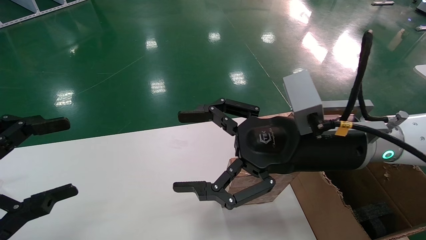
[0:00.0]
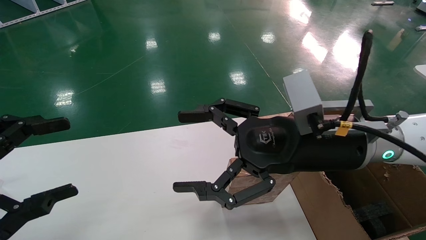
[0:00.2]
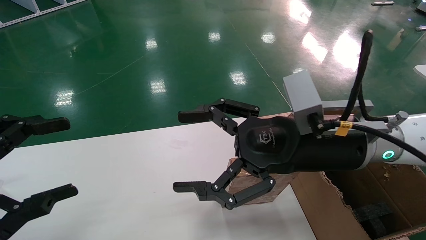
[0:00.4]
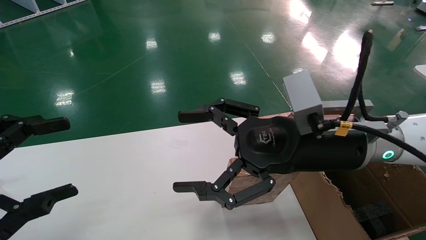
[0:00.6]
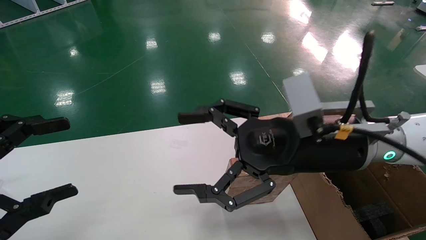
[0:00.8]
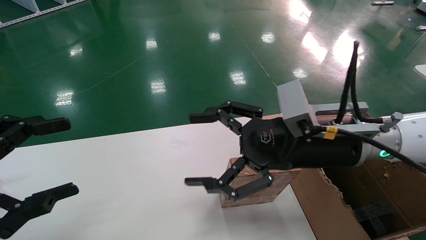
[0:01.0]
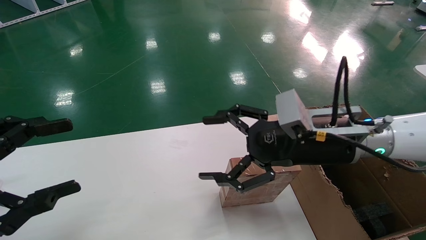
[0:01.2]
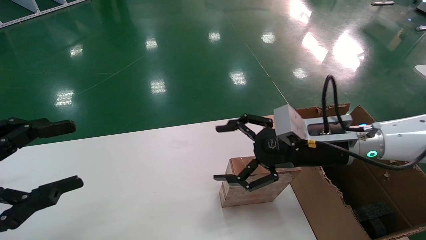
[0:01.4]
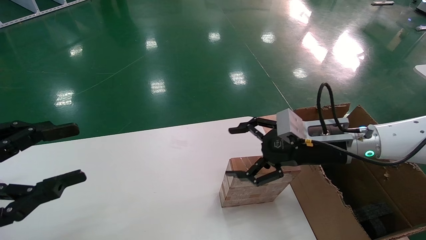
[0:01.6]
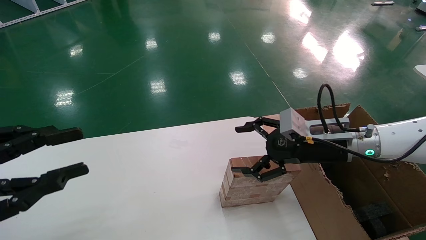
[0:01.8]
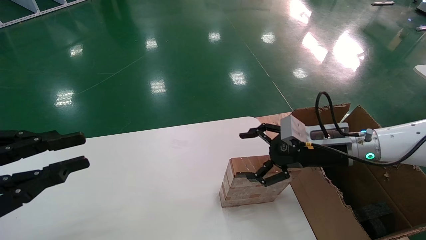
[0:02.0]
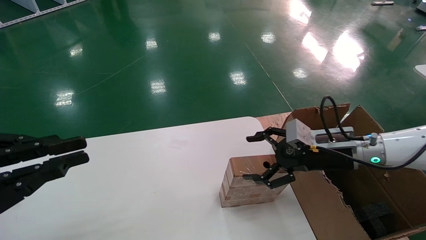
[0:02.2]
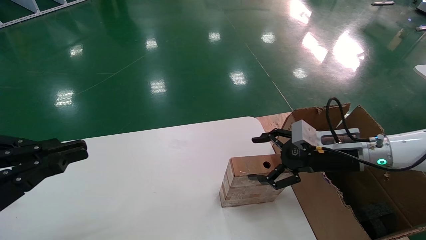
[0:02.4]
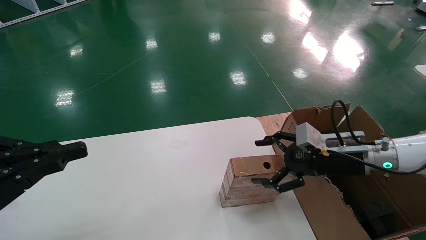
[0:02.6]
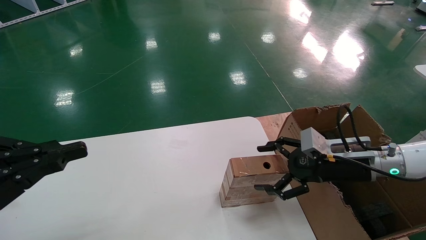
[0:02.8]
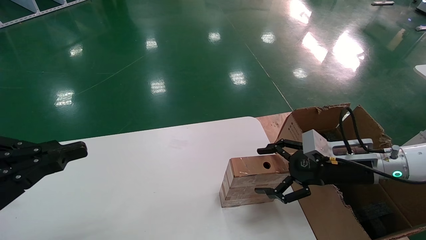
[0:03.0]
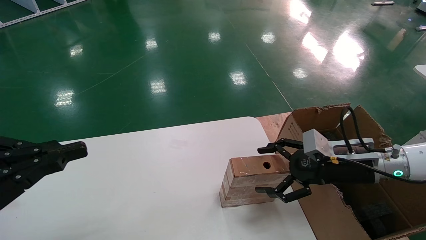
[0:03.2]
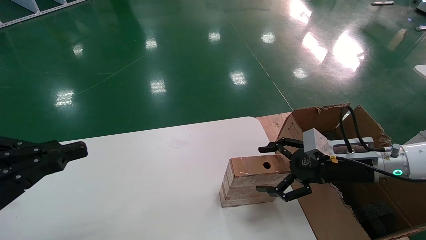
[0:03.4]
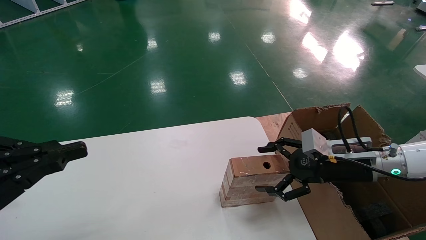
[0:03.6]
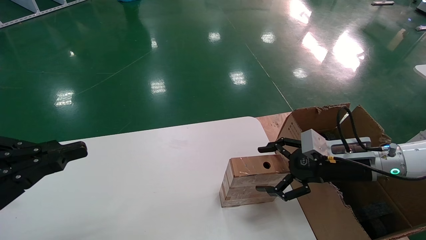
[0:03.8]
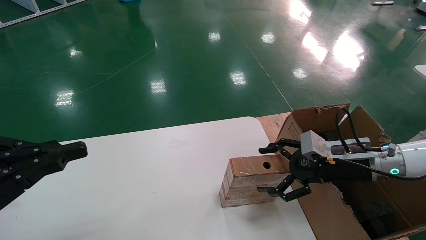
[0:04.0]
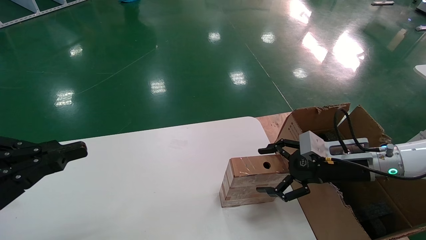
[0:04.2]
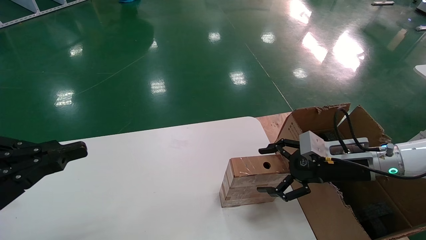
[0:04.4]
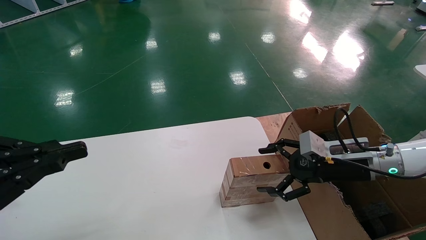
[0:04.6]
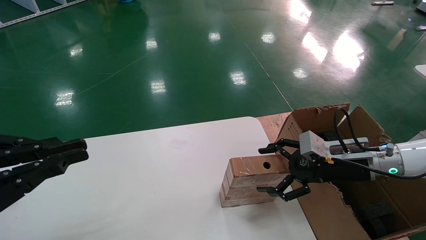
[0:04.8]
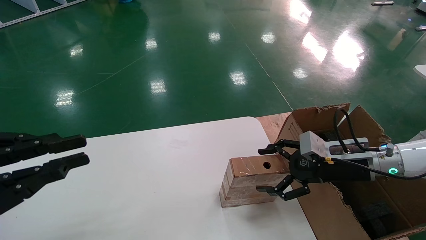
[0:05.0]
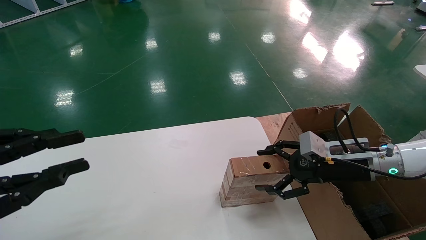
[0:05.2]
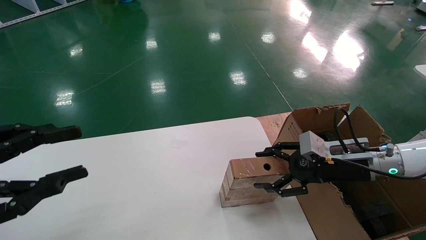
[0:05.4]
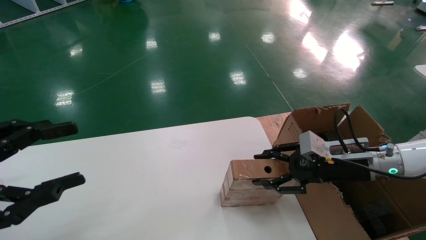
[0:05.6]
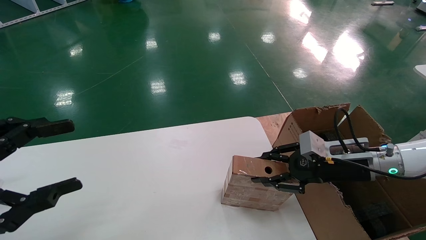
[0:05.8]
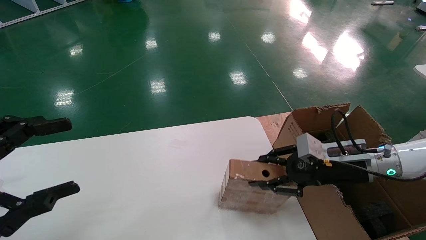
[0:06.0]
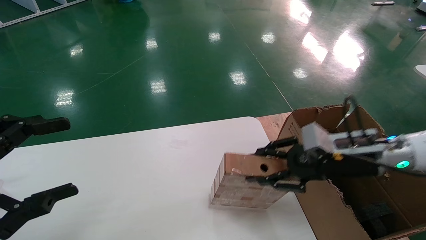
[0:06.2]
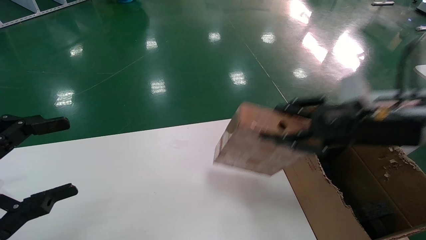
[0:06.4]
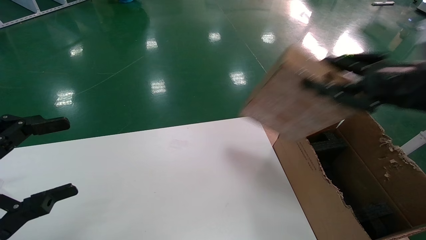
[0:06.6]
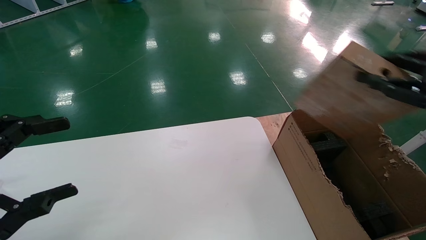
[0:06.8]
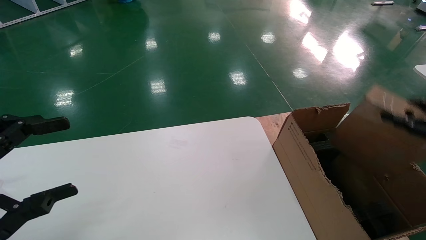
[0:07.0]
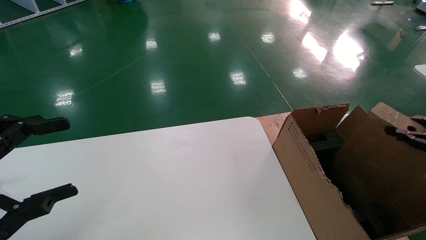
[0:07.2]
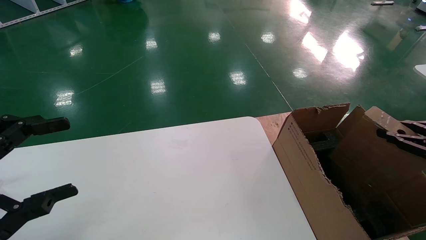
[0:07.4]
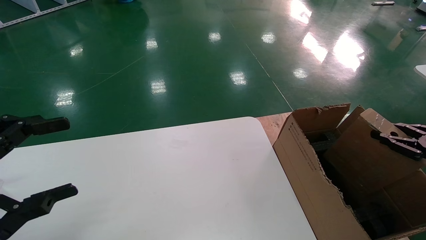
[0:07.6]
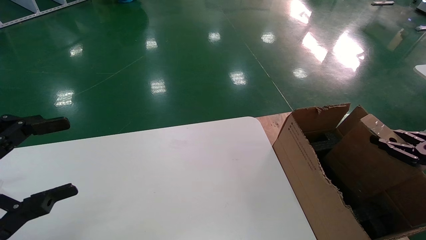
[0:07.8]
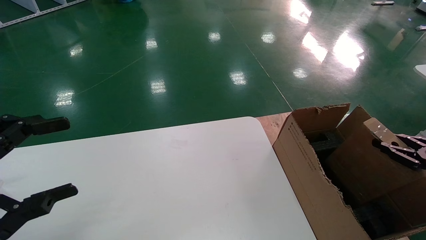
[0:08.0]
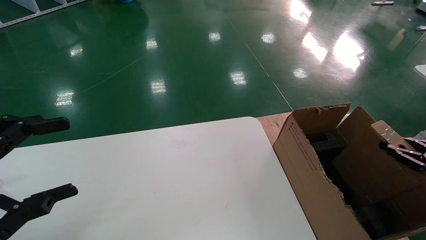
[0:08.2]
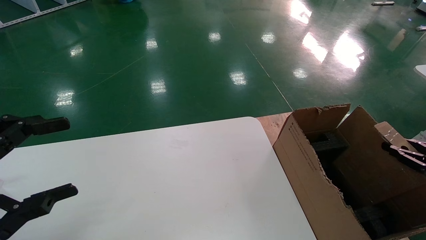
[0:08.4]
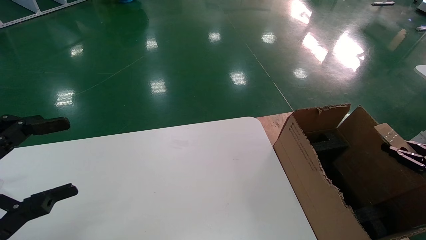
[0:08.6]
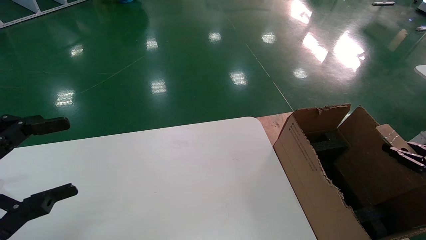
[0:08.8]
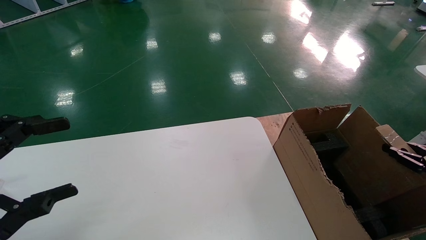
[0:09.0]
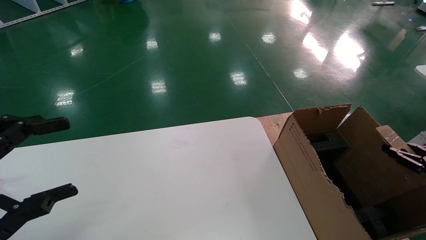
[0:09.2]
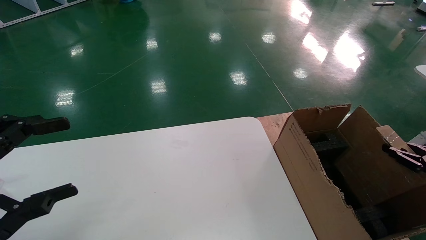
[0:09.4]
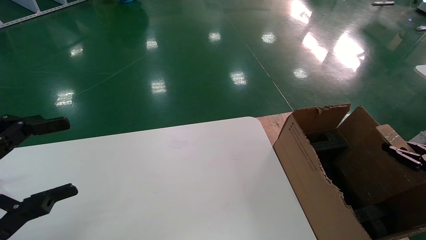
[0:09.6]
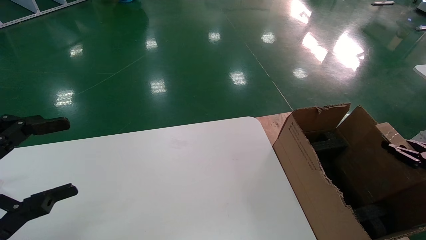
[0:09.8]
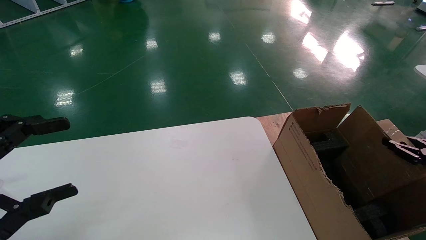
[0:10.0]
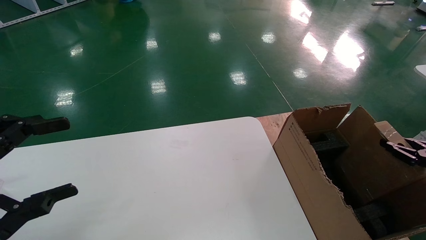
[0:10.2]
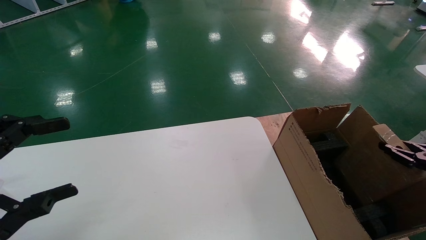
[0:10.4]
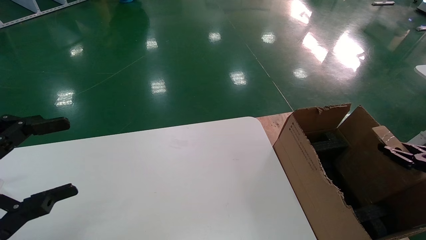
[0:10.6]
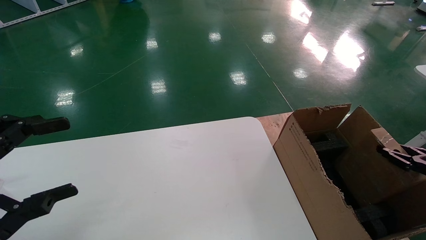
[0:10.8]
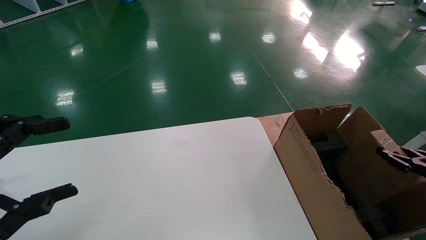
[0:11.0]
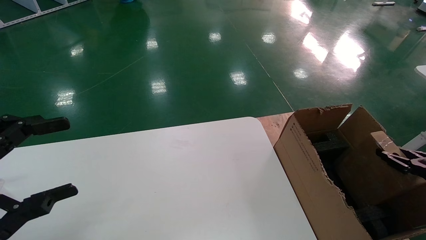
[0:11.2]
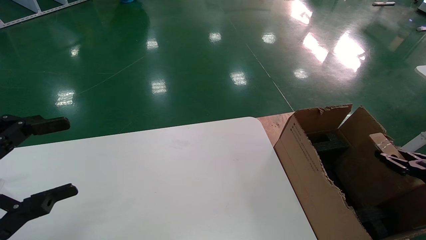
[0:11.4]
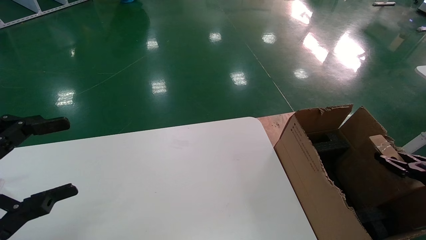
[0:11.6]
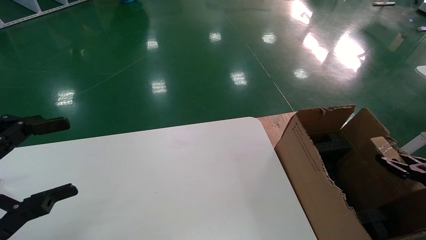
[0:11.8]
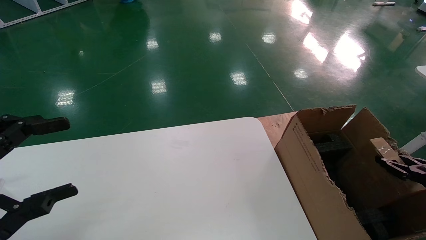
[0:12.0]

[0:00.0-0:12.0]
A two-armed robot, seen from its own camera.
Task of the whole recording: put the box on the table into the big box.
Step, 0:01.2 to 0:06.0: Pick up the mouse and the power cord paper box.
0:00.0 to 0:01.6: The right gripper goes about 15 cm to the right, forward and downward.
0:01.6 to 0:03.0: The right gripper goes roughly 5 cm to the right, while the left gripper closes.
0:03.0 to 0:04.4: The two grippers keep their place.
0:04.4 to 0:06.0: The left gripper opens up; the right gripper closes.
0:06.0 to 0:07.6: The right gripper travels to the right and backward by approximately 25 cm.
0:07.6 to 0:09.0: The right gripper moves downward, roughly 5 cm.
0:10.4 to 0:12.0: The grippers move only a little.

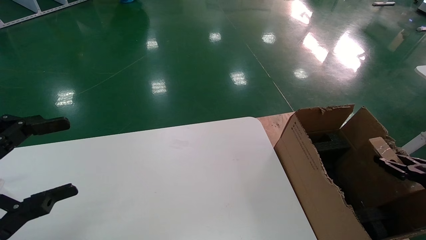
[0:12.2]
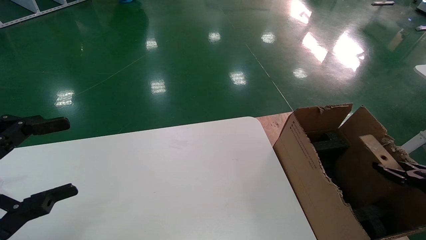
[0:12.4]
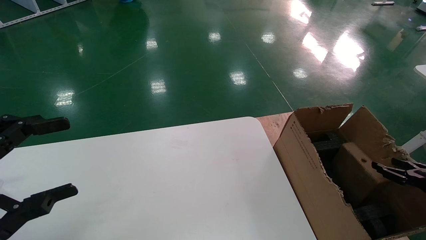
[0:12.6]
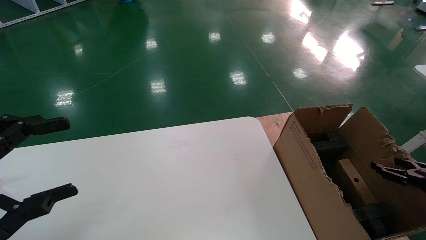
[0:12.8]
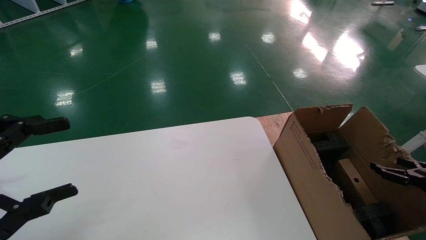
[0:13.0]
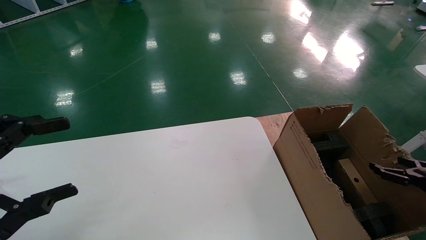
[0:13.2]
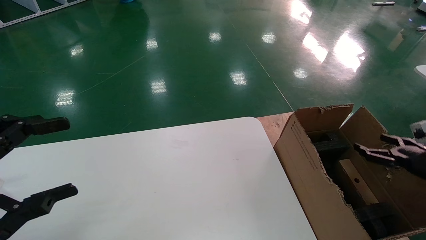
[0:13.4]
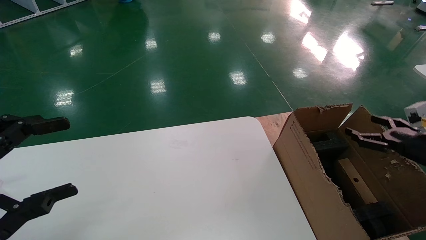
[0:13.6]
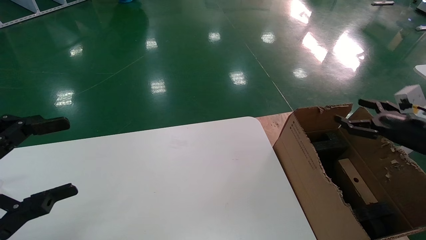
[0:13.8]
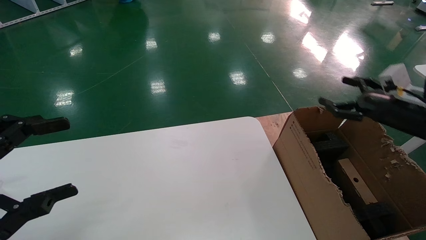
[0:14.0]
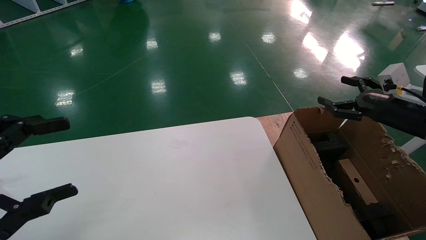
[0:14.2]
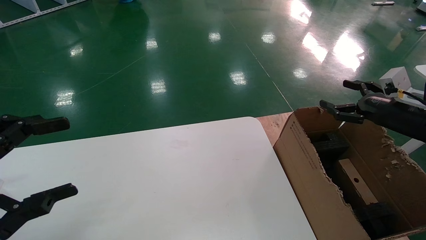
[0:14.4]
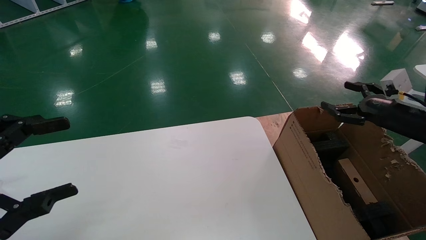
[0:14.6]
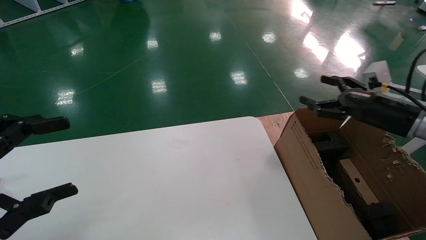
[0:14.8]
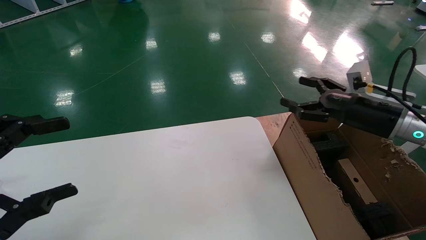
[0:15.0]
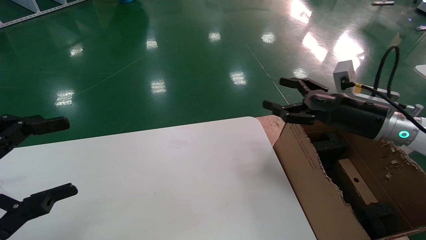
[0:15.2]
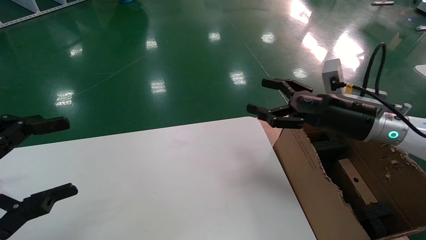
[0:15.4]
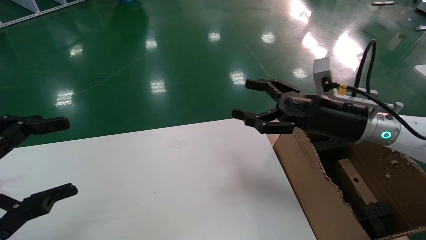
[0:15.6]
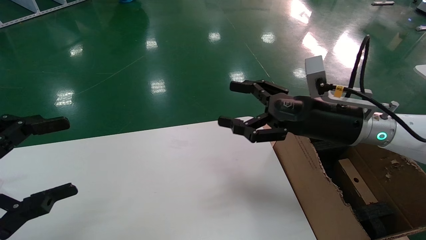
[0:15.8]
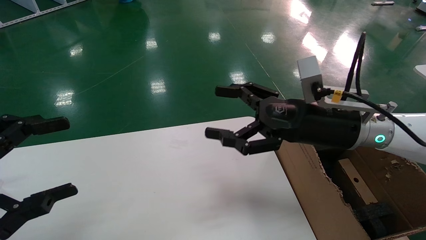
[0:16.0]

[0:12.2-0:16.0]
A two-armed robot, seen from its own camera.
Task of the whole recording: put the box on the table into the big box.
0:12.2 to 0:13.4: The right gripper moves roughly 5 cm, and opens its fingers.
0:13.4 to 0:14.8: The right gripper heads to the left, upward and forward, covering about 15 cm.
0:14.8 to 0:16.0: The right gripper moves to the left, roughly 20 cm.
